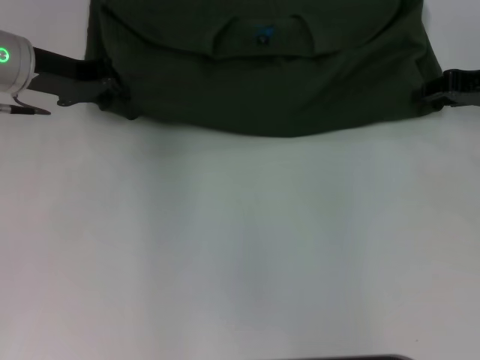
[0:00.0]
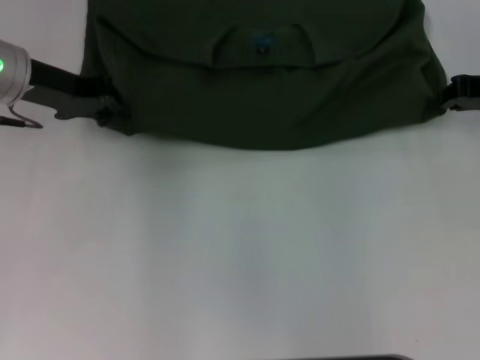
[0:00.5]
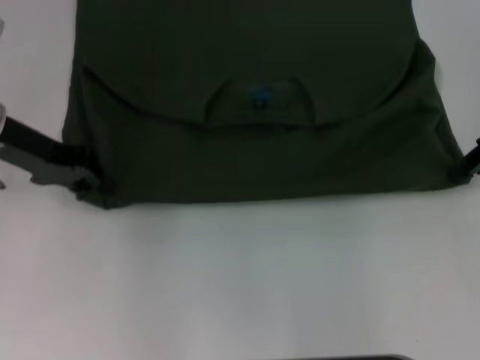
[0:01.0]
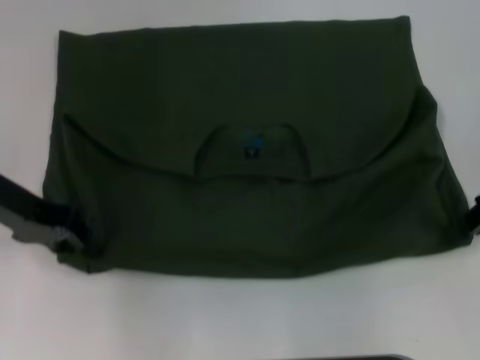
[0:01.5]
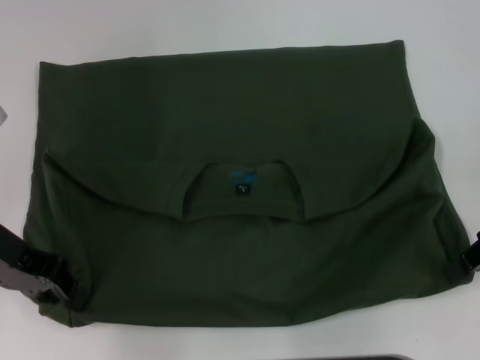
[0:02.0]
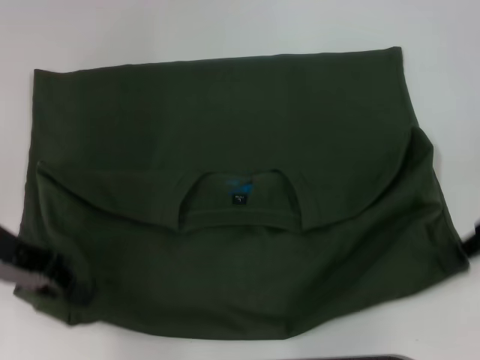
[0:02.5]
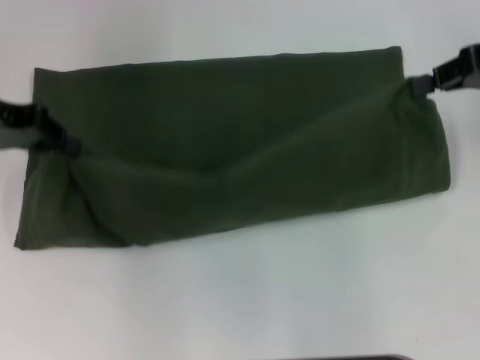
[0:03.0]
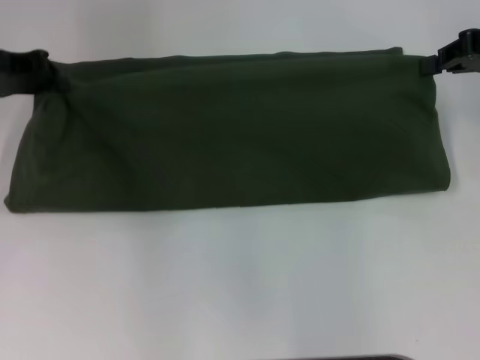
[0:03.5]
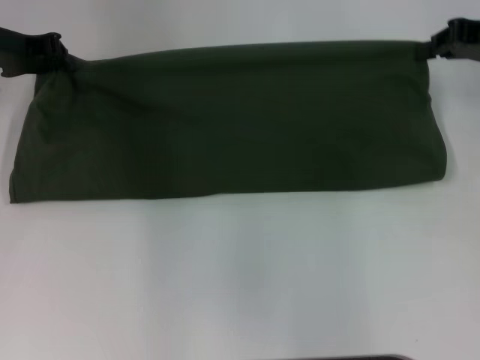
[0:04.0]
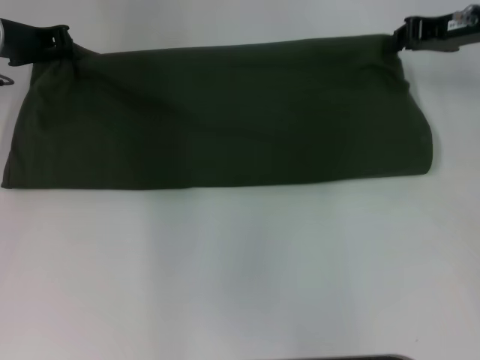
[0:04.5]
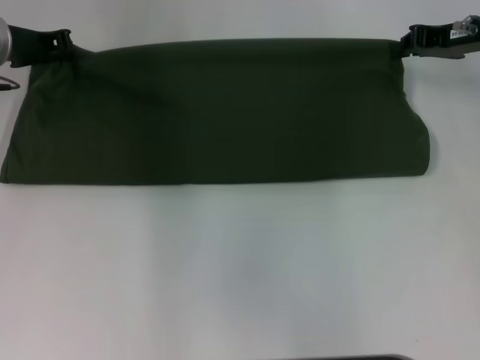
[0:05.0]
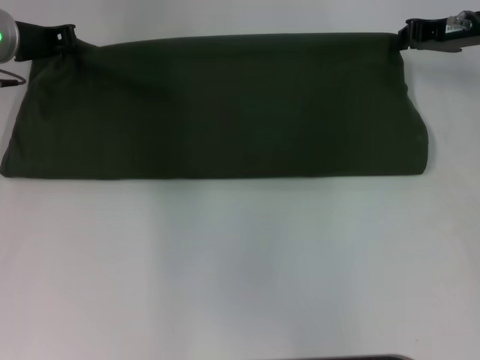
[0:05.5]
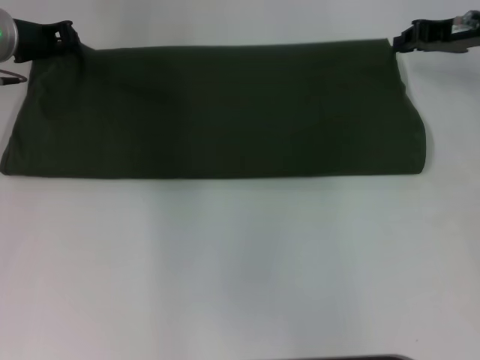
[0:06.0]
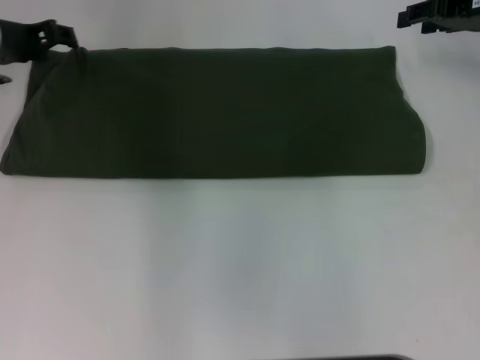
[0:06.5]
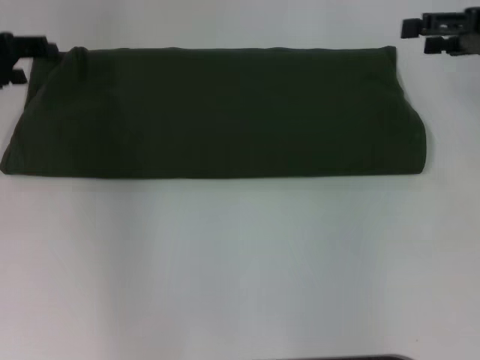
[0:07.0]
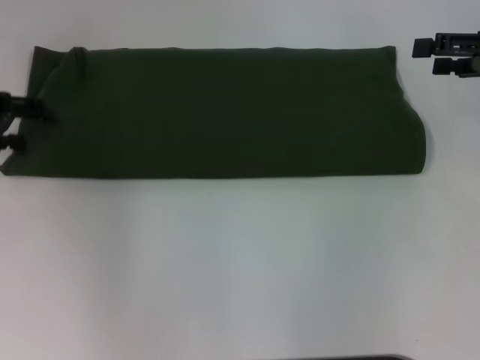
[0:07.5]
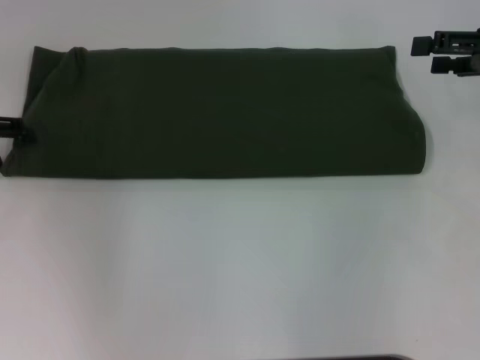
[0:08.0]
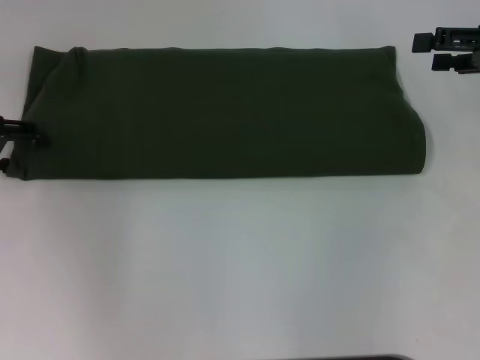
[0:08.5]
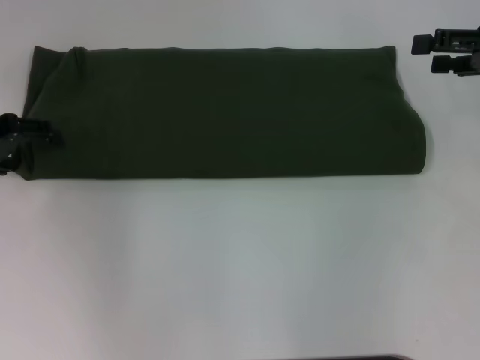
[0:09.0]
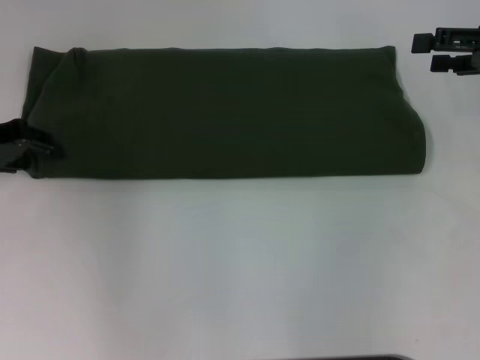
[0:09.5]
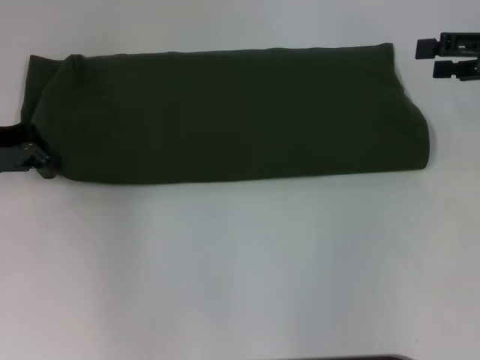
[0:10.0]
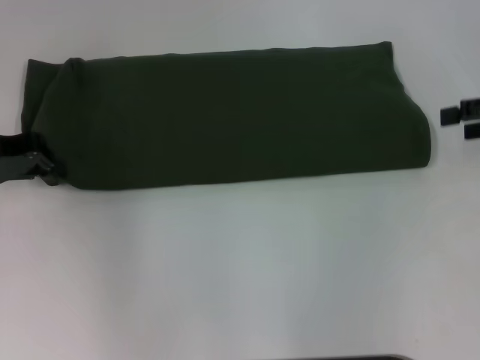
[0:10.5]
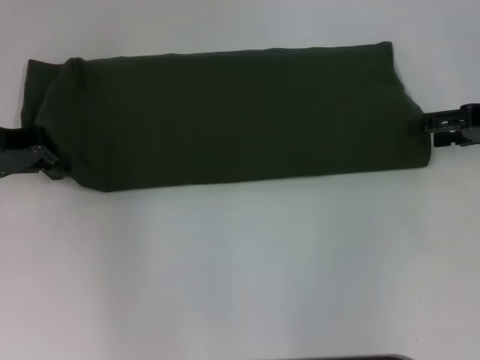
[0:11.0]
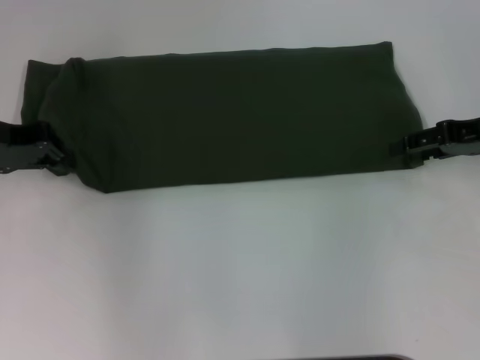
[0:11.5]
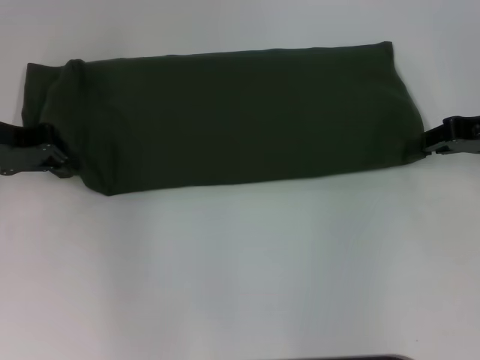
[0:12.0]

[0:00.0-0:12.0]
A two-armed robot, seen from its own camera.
Step, 0:00.0 to 0:02.0: Pull the clothes with your left hand.
Step, 0:00.0 to 0:02.0: Pull the clothes with your right hand.
Step, 0:02.5 to 0:06.5: Fold the clothes with your right hand.
0:00.0 to 0:02.0: The two grippers go some 10 cm backward. The right gripper closes.
0:02.0 to 0:04.0: Both grippers move forward, some 10 cm.
0:04.0 to 0:06.0: The grippers make only small movements.
0:06.0 to 0:08.0: The right gripper goes approximately 10 cm backward and to the right, and opens its fingers; the left gripper moves to the left and backward, about 15 cm, and opens up.
0:08.0 to 0:10.0: The left gripper closes its fingers.
0:10.0 to 0:12.0: The right gripper closes.

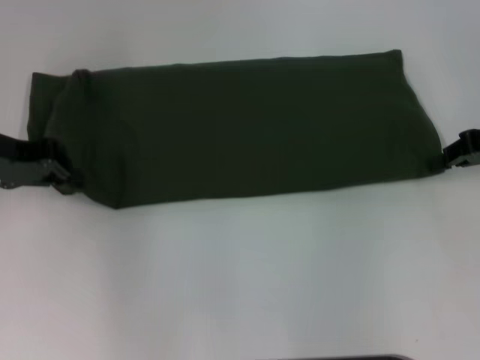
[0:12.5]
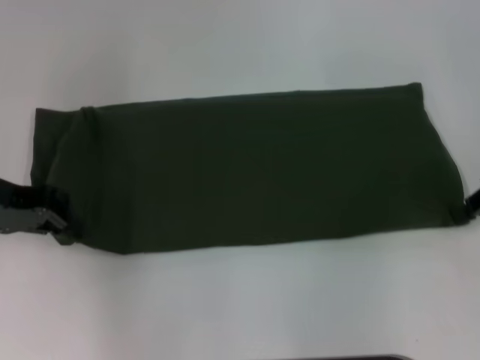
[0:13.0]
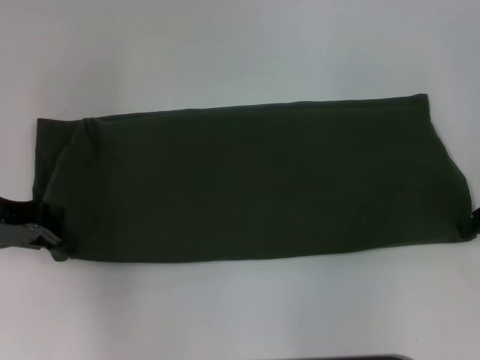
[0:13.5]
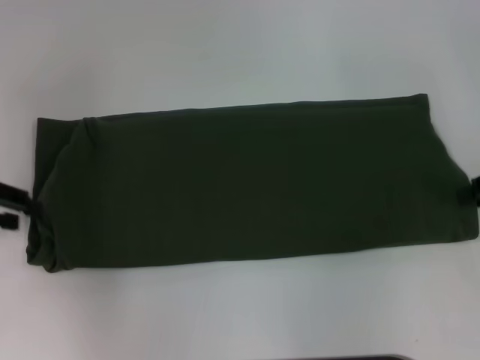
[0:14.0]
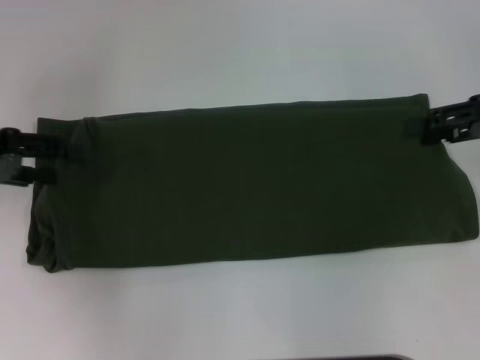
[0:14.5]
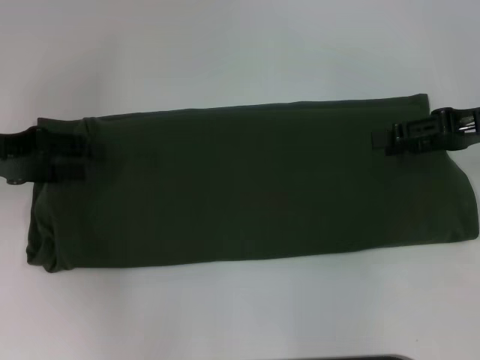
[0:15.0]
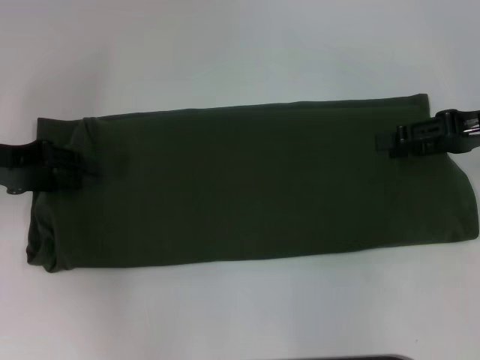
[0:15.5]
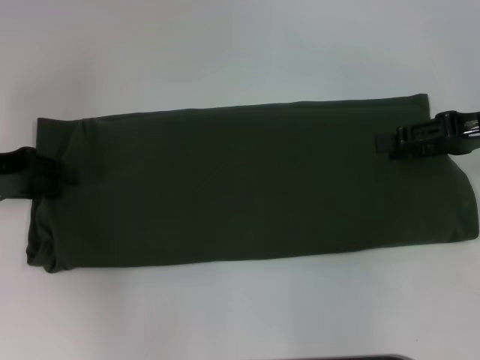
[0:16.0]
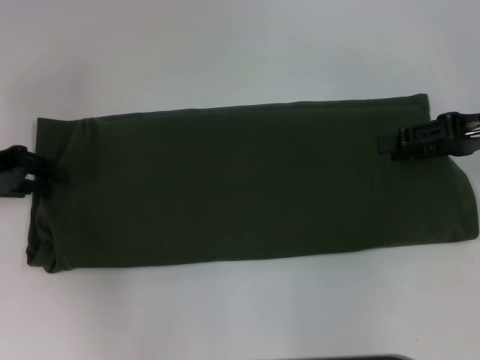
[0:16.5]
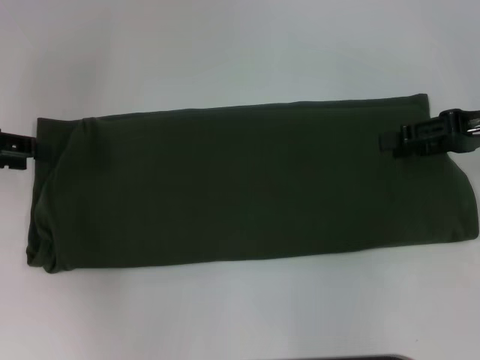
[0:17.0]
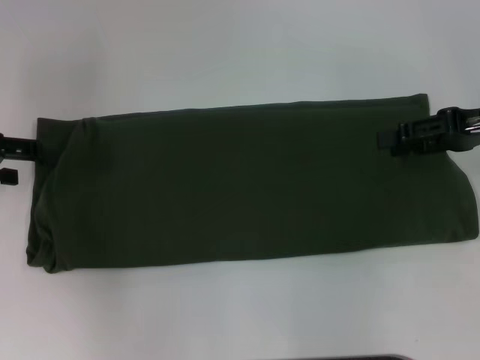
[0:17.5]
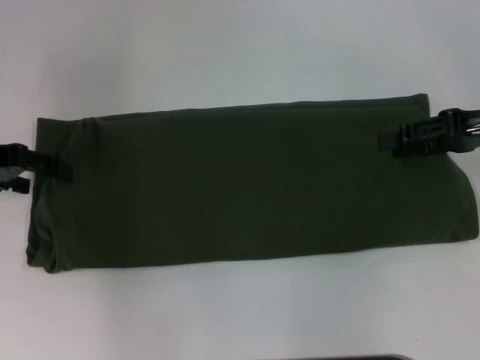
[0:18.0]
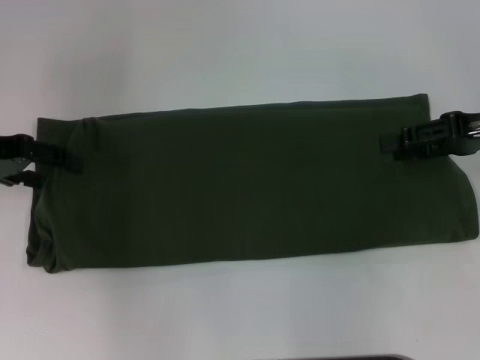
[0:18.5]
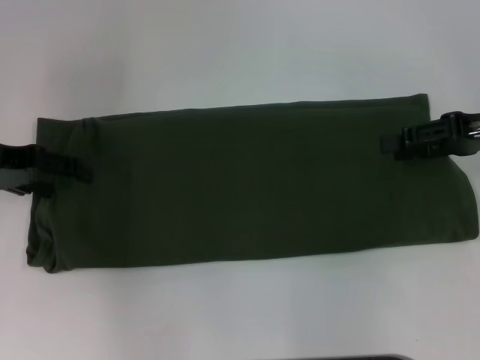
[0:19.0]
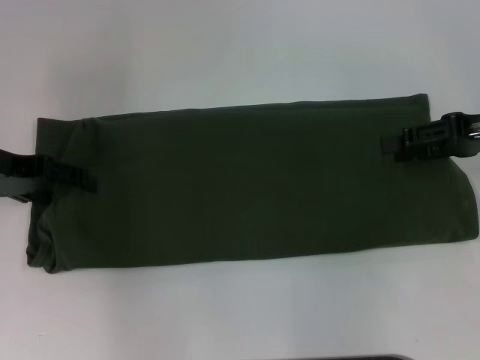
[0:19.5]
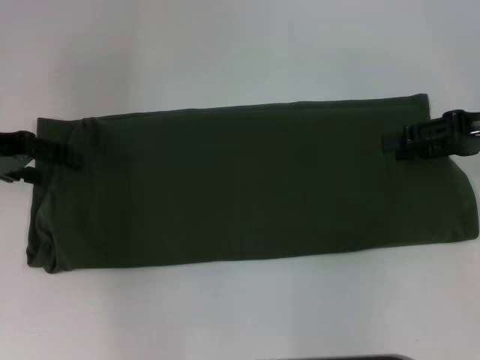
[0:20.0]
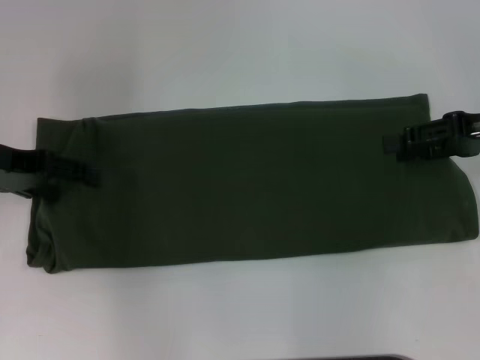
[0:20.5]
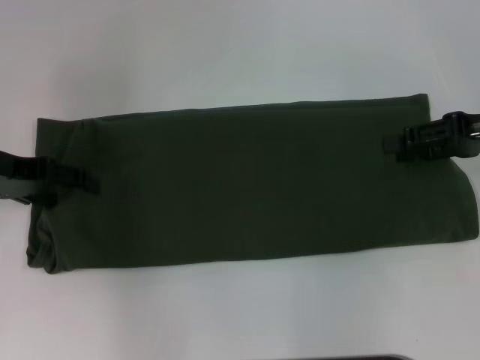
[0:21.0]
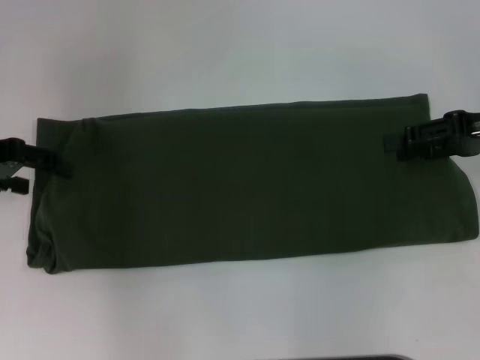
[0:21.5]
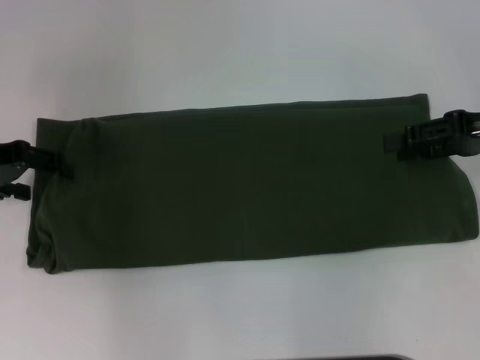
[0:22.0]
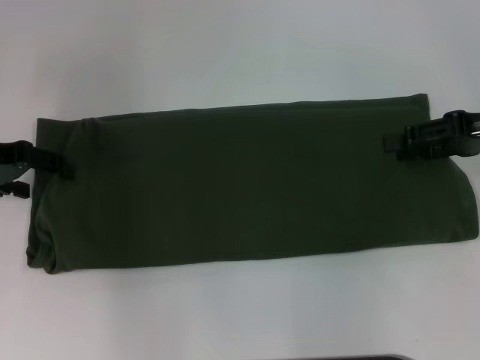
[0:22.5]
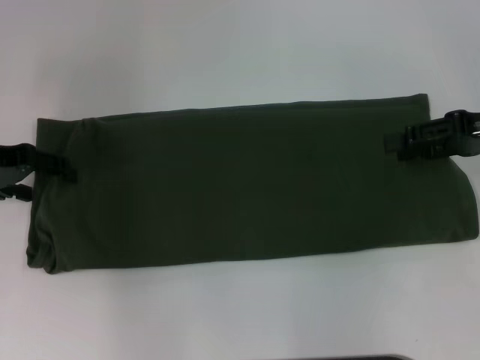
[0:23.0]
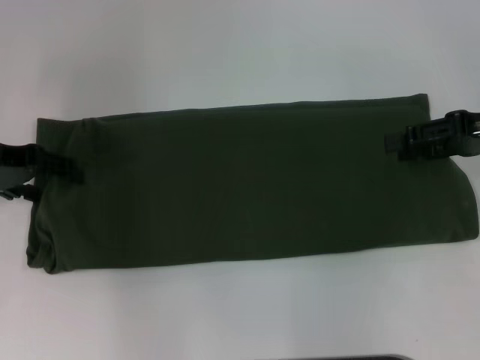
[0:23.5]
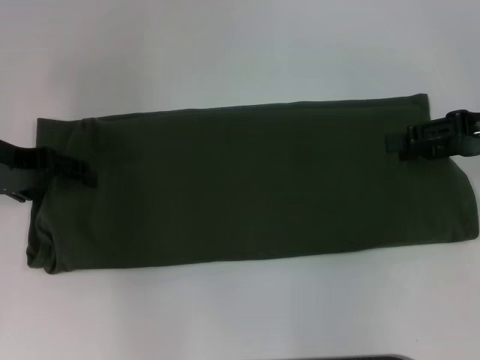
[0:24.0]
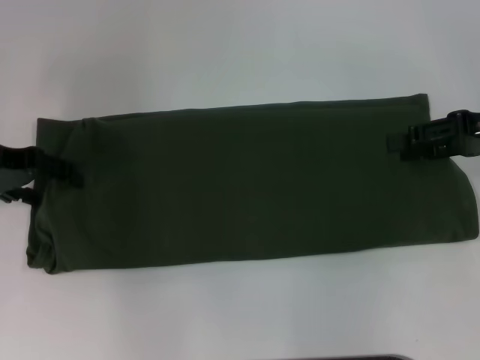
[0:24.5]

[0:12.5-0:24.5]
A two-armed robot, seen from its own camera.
0:12.5 to 0:14.5: The right gripper opens its fingers. Meanwhile the left gripper ends up about 5 cm from where it was, and opens up.
0:14.5 to 0:16.5: There are only small adjustments of the grippers.
0:16.5 to 0:18.5: The left gripper opens.
0:18.5 to 0:20.5: The grippers stay close to where they were, moving slightly.

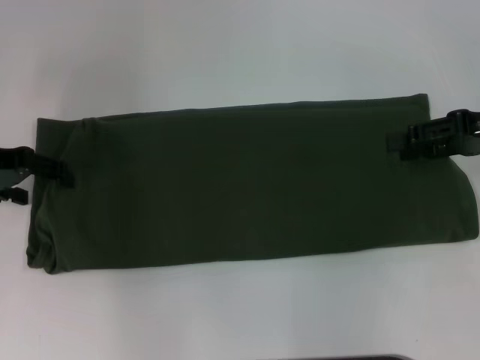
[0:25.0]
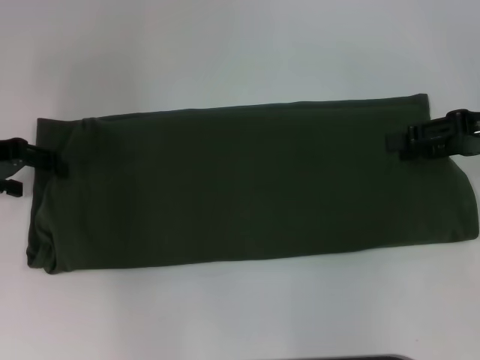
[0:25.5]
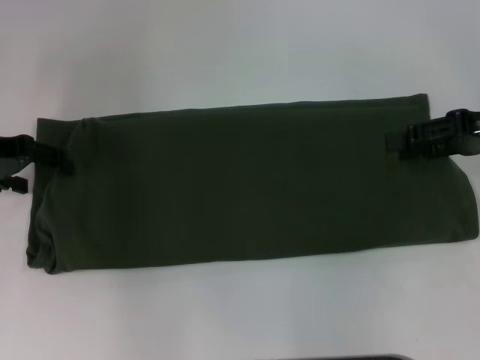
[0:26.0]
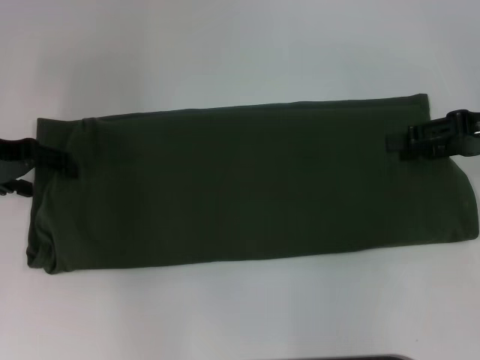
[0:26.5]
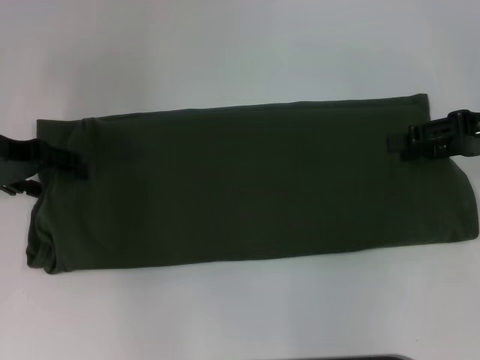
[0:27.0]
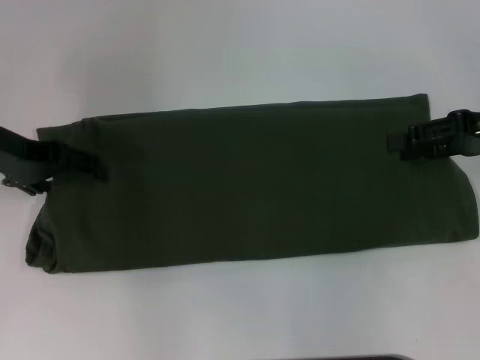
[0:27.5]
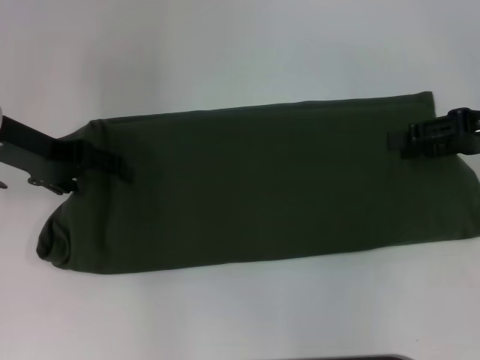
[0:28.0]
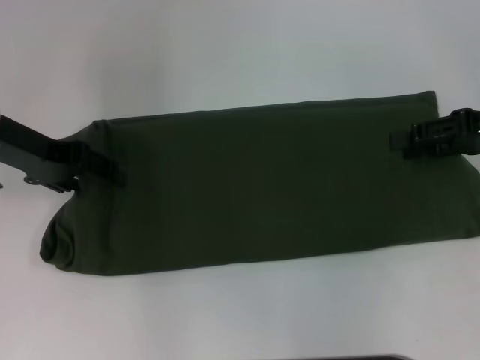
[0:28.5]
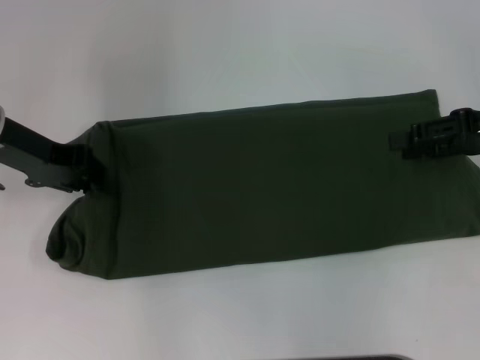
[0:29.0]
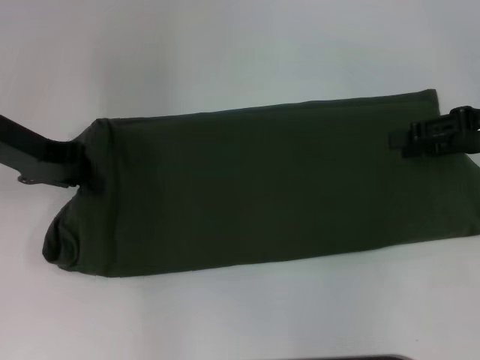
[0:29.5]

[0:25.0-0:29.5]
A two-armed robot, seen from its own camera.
0:27.0 to 0:29.5: The left gripper closes up.
